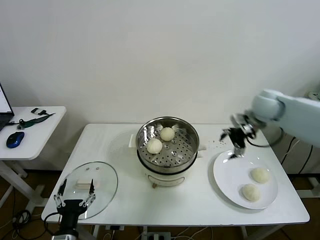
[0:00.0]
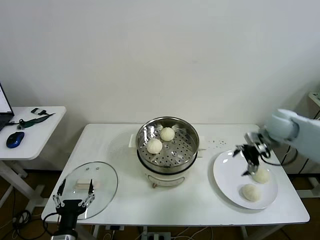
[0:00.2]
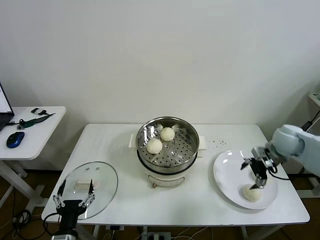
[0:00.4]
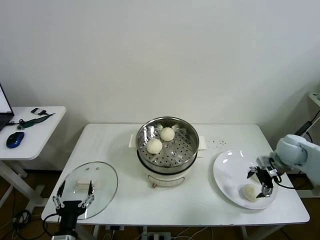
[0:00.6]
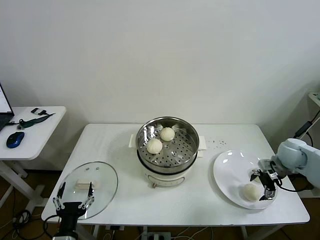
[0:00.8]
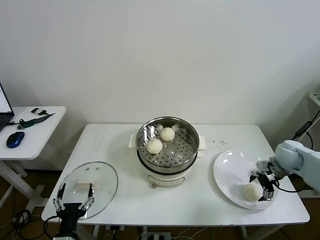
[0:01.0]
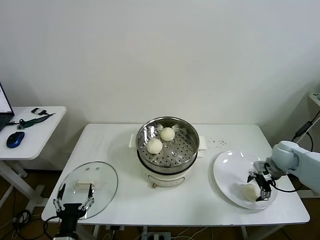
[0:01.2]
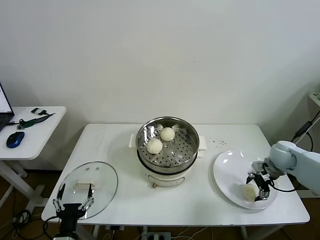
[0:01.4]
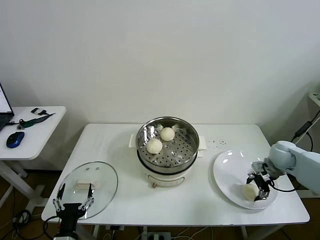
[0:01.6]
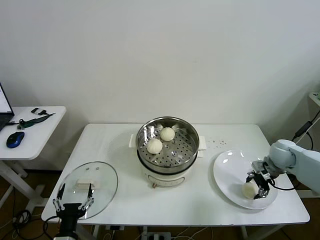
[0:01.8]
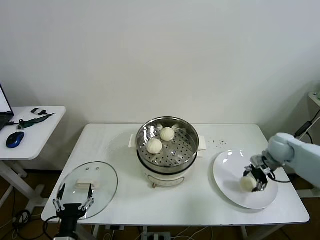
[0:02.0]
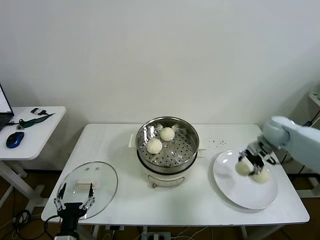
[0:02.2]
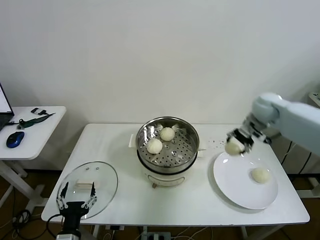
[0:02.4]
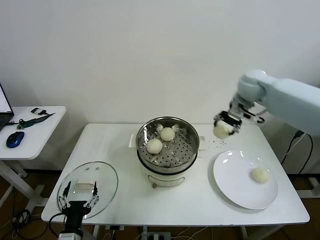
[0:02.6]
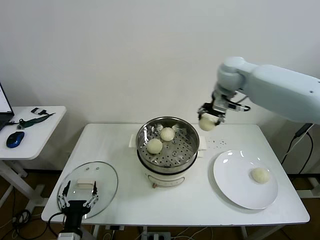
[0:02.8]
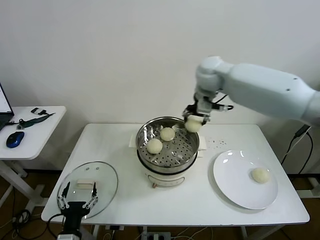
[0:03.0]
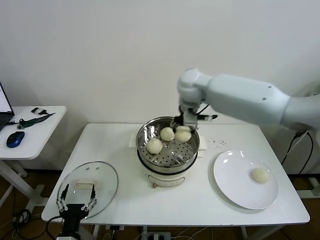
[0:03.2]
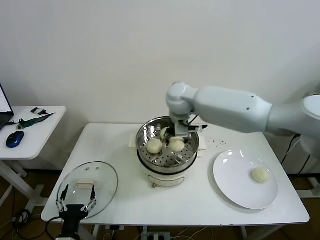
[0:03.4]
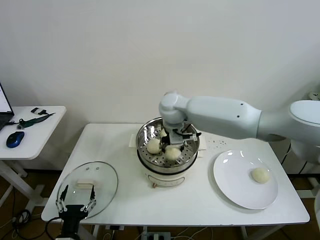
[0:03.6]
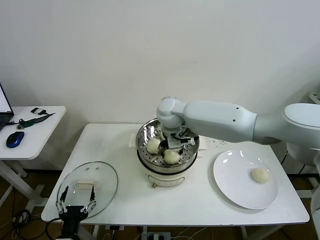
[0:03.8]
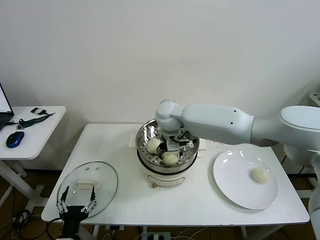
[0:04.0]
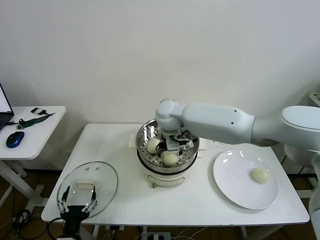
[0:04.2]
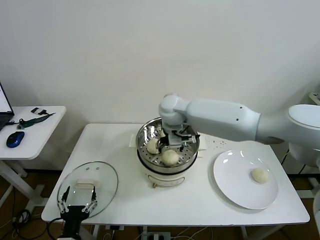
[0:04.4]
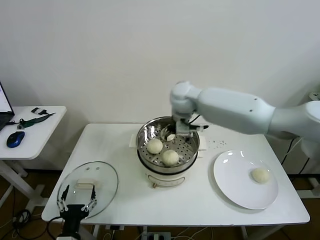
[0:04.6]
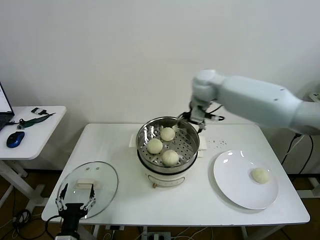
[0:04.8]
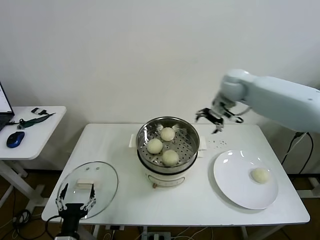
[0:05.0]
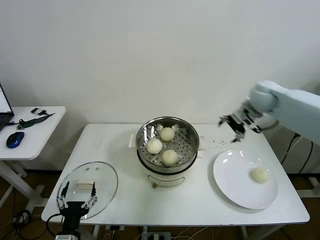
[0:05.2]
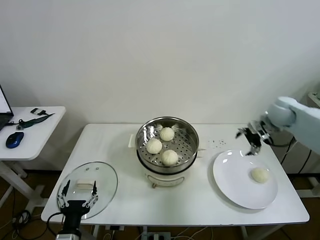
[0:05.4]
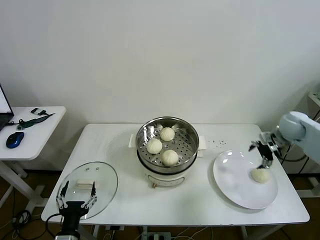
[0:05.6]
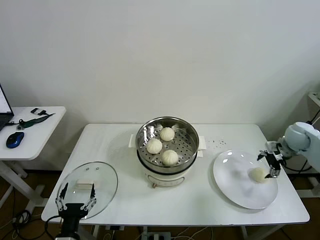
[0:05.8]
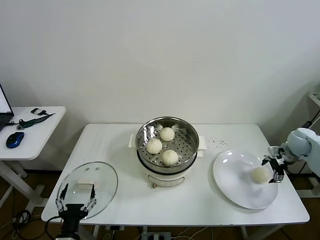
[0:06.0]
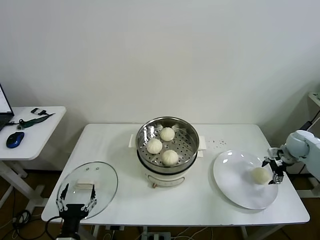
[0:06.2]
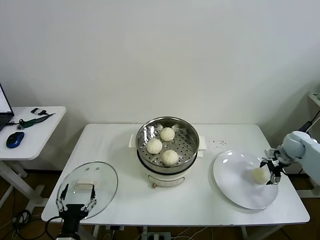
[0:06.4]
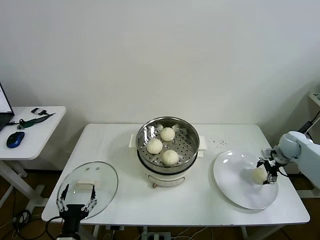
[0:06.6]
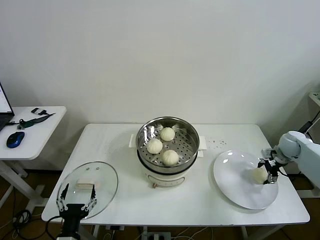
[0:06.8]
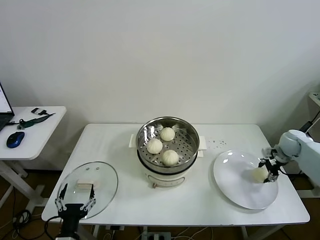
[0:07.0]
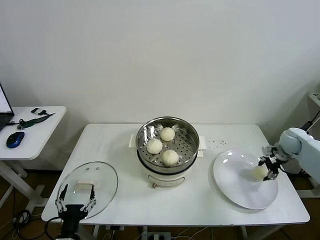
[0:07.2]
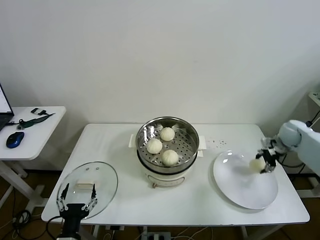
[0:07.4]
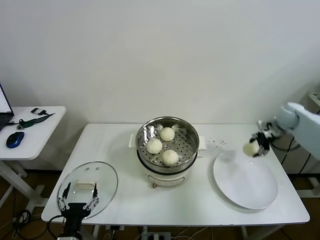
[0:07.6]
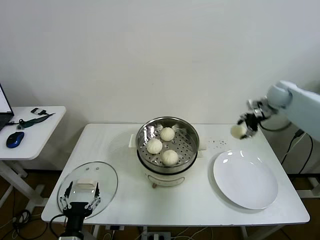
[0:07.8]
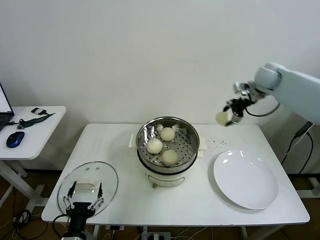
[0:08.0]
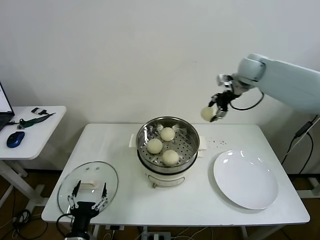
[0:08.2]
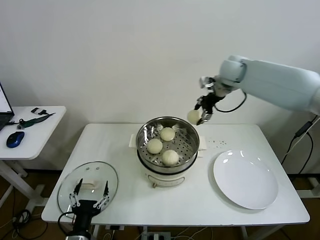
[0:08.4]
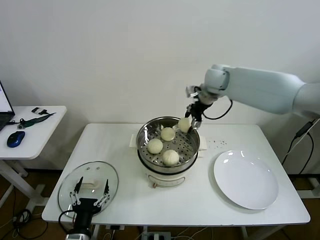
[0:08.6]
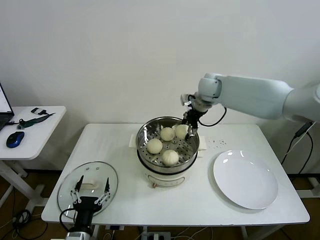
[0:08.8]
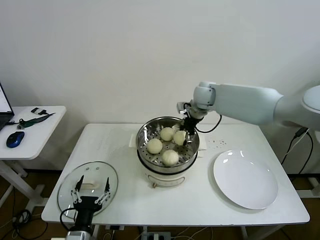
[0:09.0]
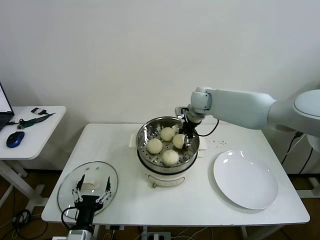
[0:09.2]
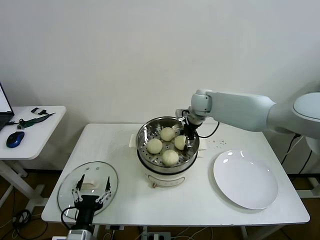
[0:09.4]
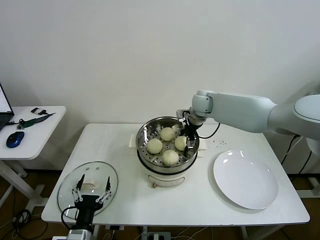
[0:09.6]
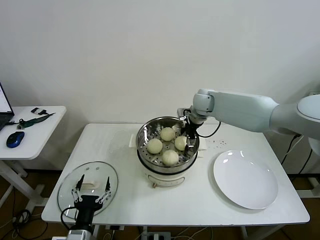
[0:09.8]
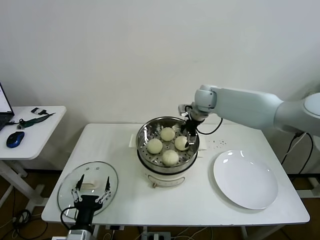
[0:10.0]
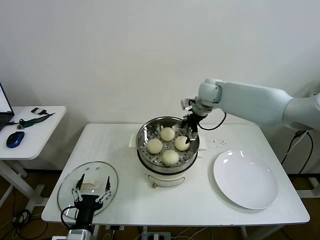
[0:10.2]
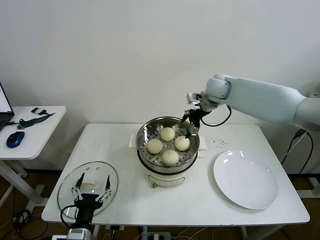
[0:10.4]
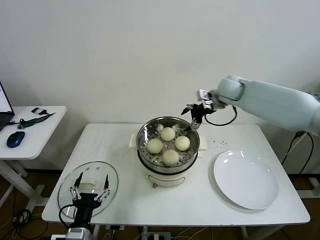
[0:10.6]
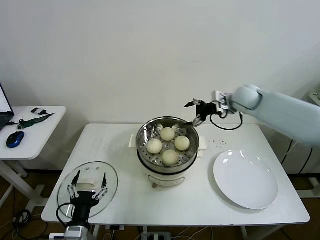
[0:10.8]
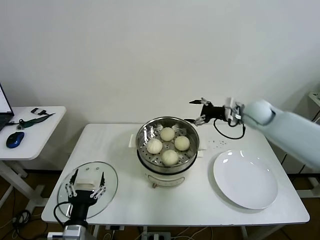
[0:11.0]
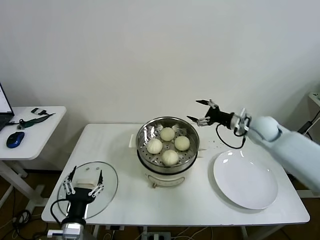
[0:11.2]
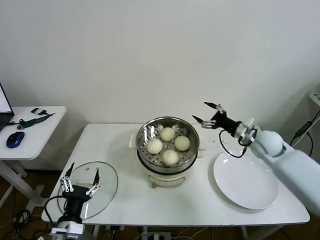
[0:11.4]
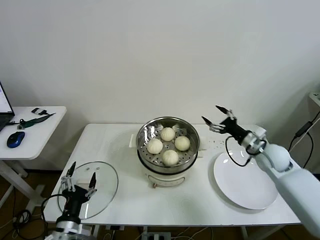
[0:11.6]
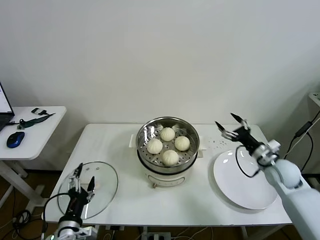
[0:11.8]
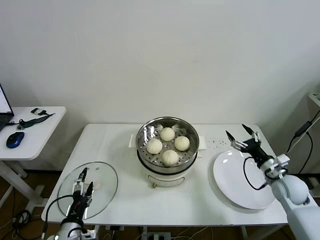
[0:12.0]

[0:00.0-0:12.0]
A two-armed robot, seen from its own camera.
Task of the whole recording: take steamed baozi put them in steamer then cover it.
Step, 0.0 to 1.6 s: Grasp the baozi in the plate with right gripper.
Step, 1.8 to 4.0 s: Place the baozi on the steamer with right gripper.
Step, 4.4 to 6.8 s: Grasp the baozi in the plate with right gripper.
Step, 7.0 to 9.8 s: Place the baozi on the steamer with right gripper.
0.0 to 1.6 s: The right gripper goes some 20 cm downward and to the right, and closes its fingers.
1.6 to 3.0 s: The right gripper travels to the left and upward by about 40 cm.
3.0 to 4.4 s: The right gripper goes roughly 15 cm downward and to the left, and opens up.
4.4 to 6.0 s: The right gripper shifts some 50 cm to the right.
6.0 to 7.6 s: The right gripper travels forward and upward by about 10 cm, and closes its fingers.
7.6 to 9.0 s: The right gripper is displaced to the left by approximately 30 cm.
9.0 to 10.4 s: The right gripper changes place by roughly 5 cm, and opens up.
10.4 to 12.0 s: The left gripper ends up about 5 cm from where it was; the right gripper moves backward, downward and to the right, some 40 cm.

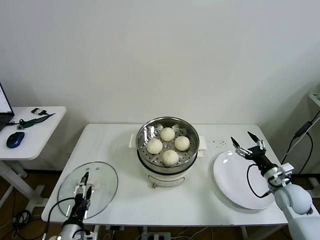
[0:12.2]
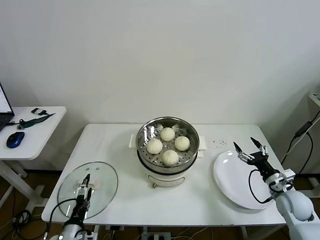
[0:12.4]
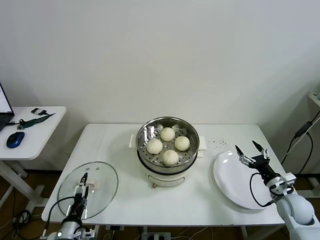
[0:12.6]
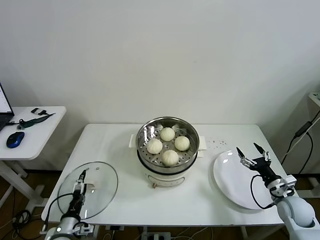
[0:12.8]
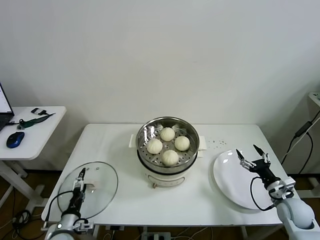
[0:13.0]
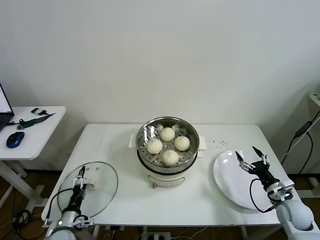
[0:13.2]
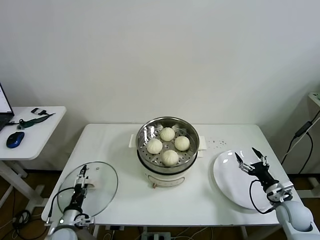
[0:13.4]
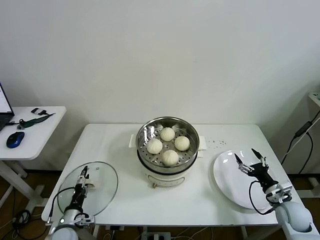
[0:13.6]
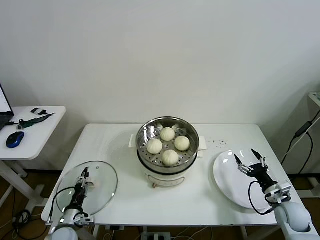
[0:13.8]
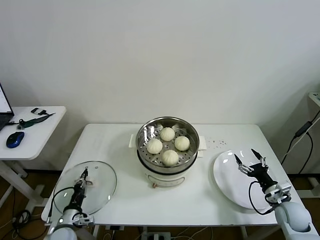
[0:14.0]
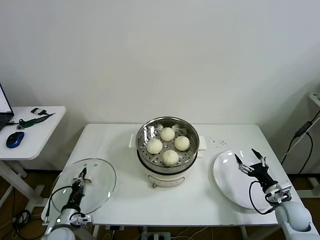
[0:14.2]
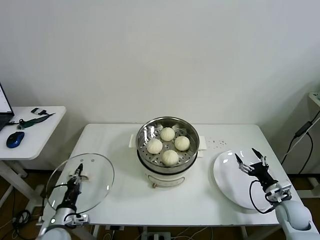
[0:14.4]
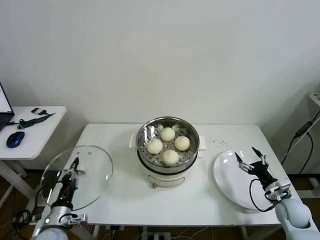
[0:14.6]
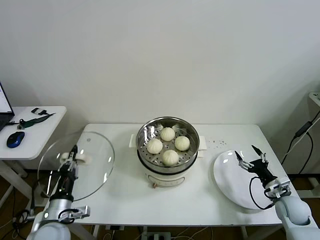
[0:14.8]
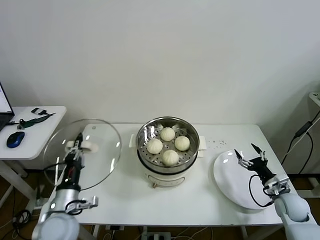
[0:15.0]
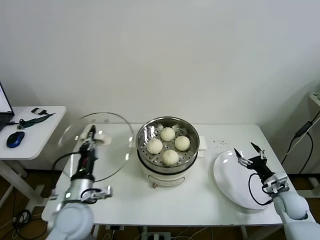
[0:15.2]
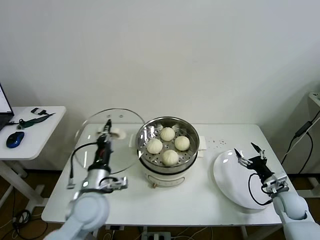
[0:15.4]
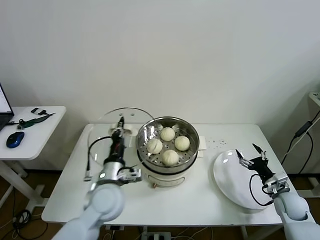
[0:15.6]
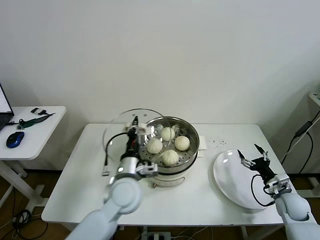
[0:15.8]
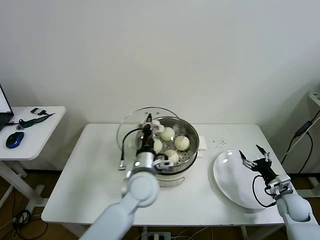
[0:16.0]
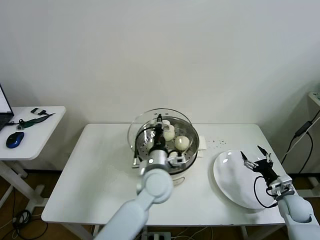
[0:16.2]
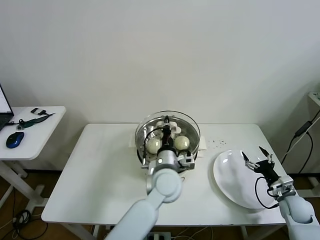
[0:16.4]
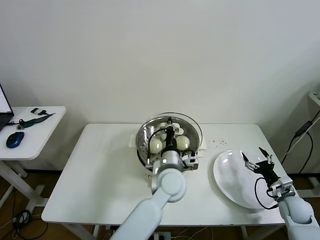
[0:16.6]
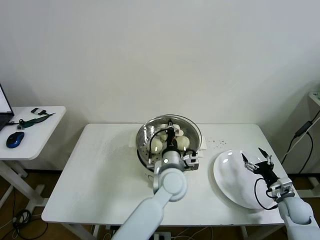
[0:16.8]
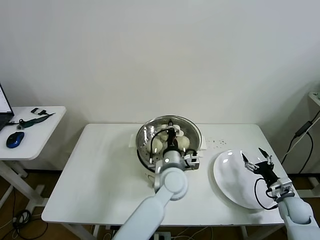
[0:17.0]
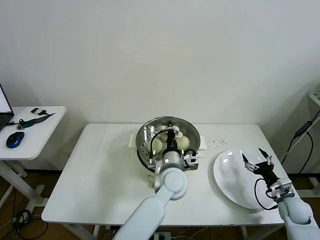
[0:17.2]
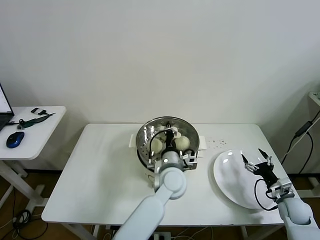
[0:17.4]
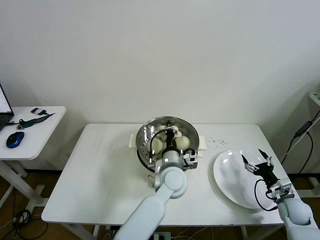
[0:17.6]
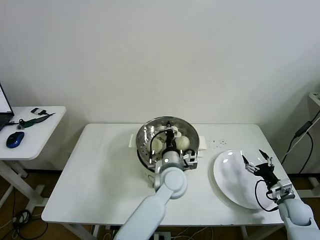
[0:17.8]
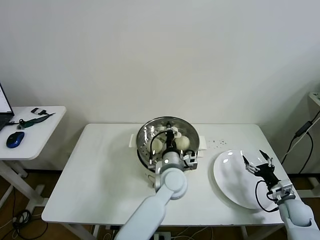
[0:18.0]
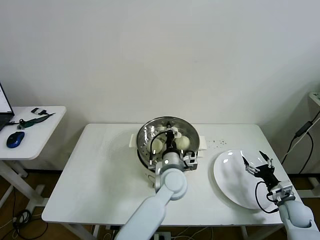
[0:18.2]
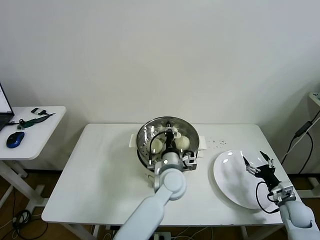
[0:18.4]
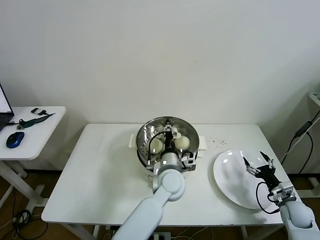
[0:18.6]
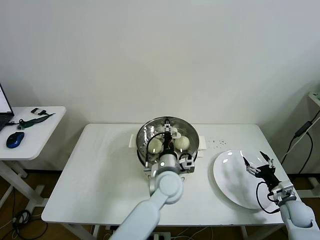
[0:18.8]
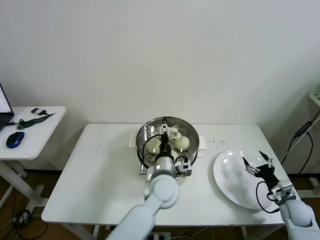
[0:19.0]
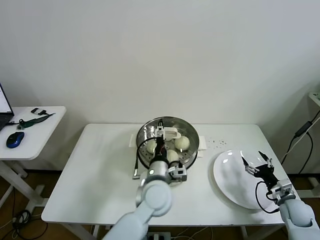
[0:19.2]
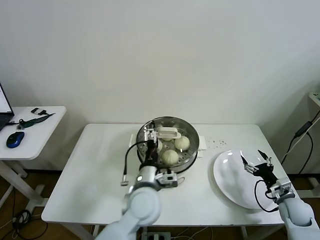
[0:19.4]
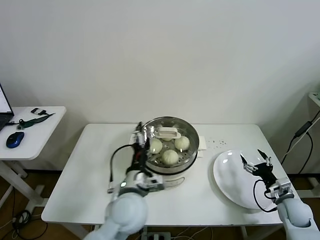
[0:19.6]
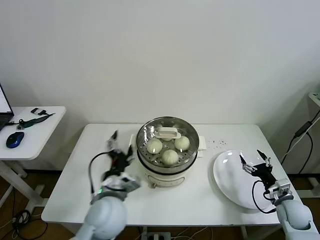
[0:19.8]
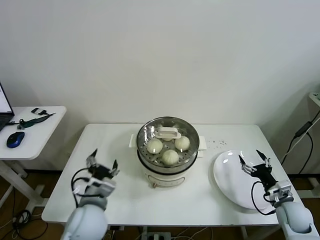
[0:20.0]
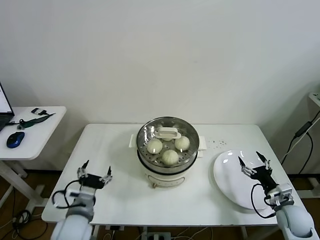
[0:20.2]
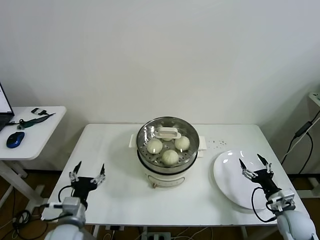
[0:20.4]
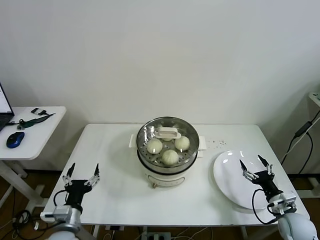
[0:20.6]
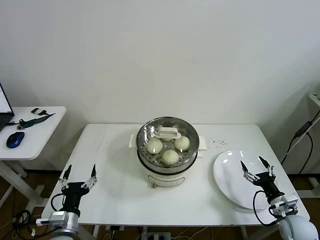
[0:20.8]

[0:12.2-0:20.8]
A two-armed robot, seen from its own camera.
Task of the whole recording: take steamed baozi put them in steamer then cover it.
Step, 14.2 to 18.6 s: Place the pot lid on the steamer with left gripper.
12.2 to 13.6 s: The left gripper is displaced downward, forward and to the left by approximately 10 cm; the right gripper heads downward, covering roughly 5 cm.
13.6 to 15.0 s: The left gripper heads upward, covering approximately 15 cm, and closes up.
15.0 to 16.6 s: The left gripper travels to the right by some 30 cm.
16.6 to 18.0 s: The grippers stay close to where they were, moving slightly.
18.0 to 19.4 s: The left gripper moves to the left and backward, approximately 10 cm, and opens.
19.4 to 20.8 s: The left gripper travels to the left and backward by roughly 25 cm; the right gripper shifts roughly 5 cm backward.

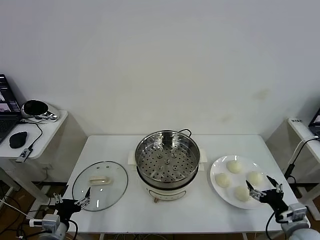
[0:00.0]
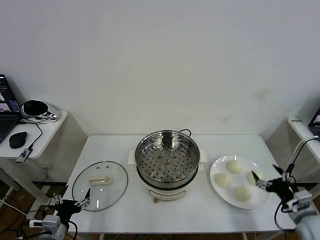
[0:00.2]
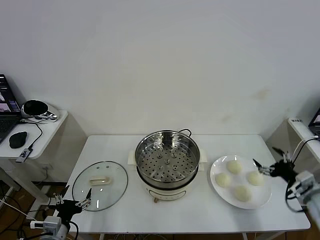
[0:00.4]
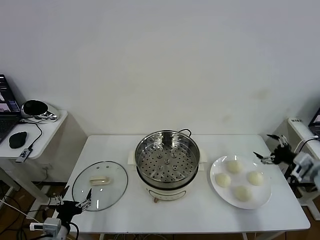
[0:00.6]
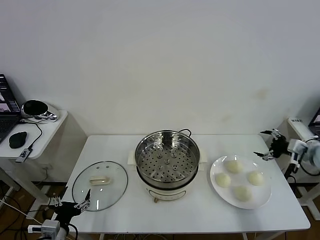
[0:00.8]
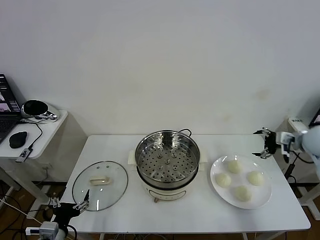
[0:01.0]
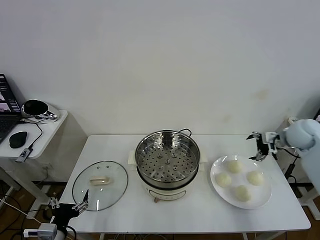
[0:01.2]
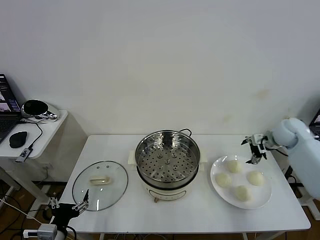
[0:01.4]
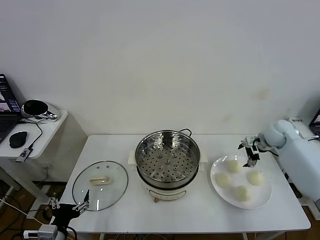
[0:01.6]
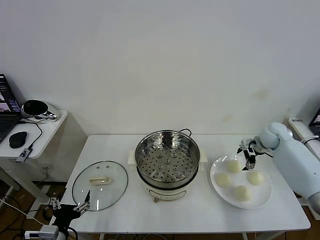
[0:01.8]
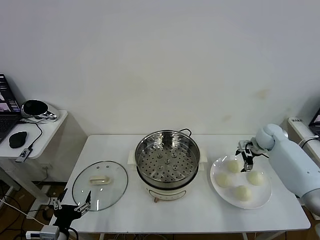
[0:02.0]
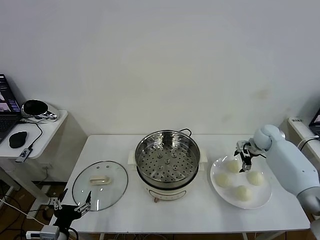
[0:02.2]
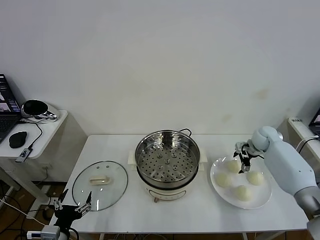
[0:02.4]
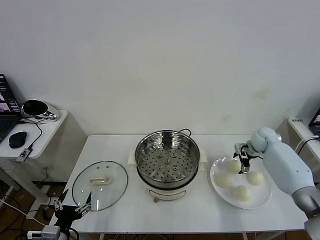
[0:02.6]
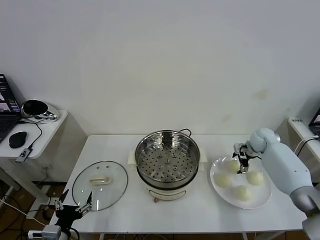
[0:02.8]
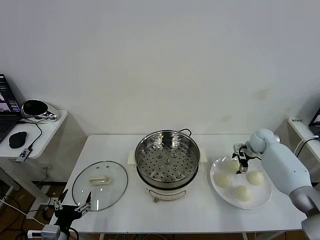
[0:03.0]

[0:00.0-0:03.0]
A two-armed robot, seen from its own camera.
Task of the whole recording: take steamed baozi put them in steamer then cover it.
1.6 to 3.0 s: The right gripper moves downward, roughly 5 cm.
